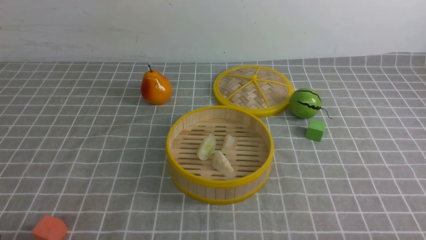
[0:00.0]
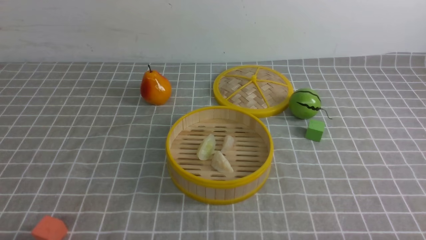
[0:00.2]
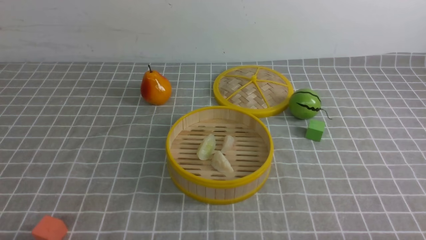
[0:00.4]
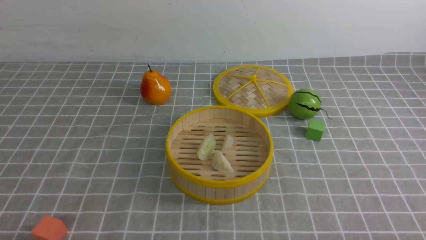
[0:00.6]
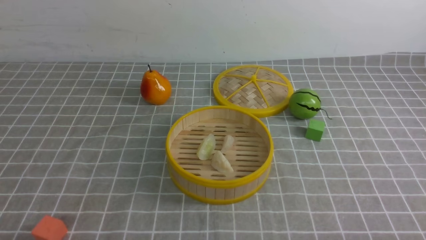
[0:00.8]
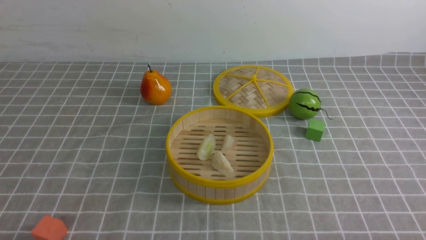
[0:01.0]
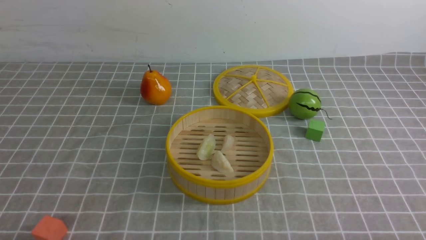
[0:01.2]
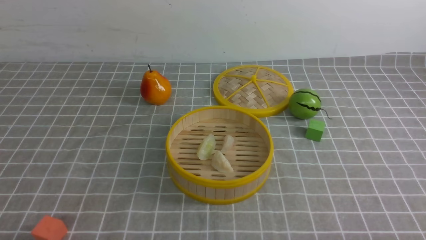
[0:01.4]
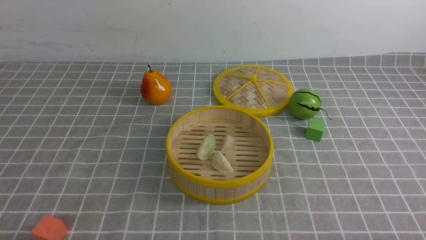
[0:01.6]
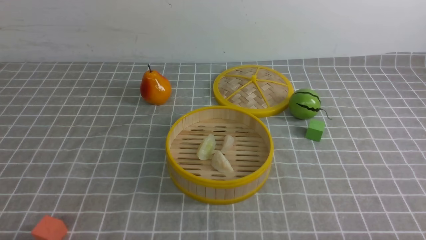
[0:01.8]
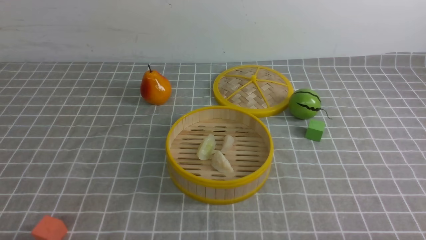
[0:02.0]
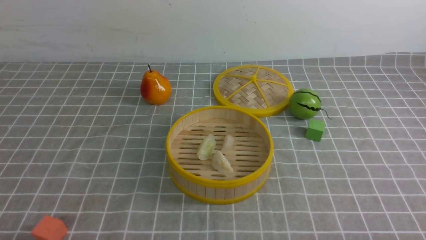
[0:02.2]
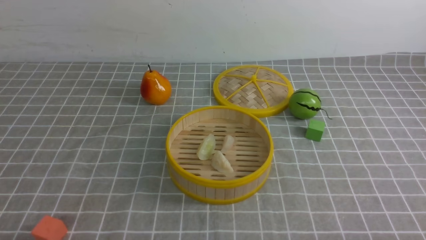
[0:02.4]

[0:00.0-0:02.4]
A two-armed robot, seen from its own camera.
Task of the whole recording: put the dumplings into the steamer on the table with the grey tablecloth.
1.2 to 2.4 s: Both grippers stay put.

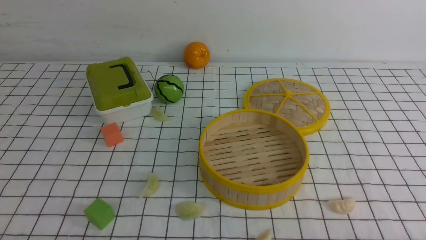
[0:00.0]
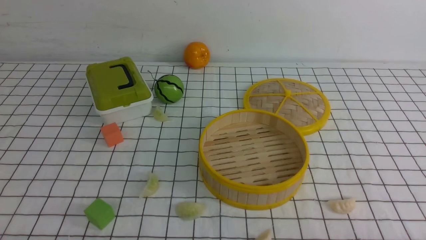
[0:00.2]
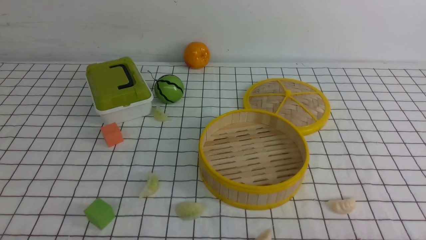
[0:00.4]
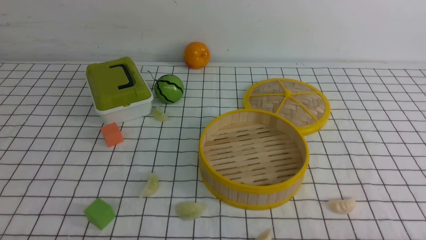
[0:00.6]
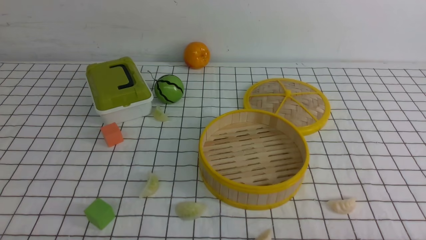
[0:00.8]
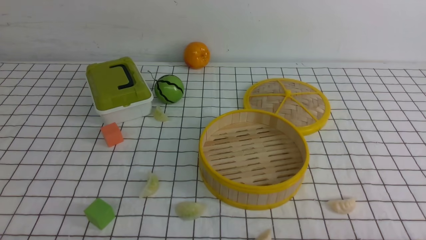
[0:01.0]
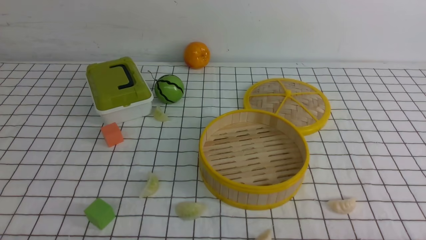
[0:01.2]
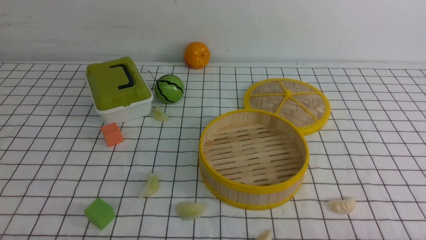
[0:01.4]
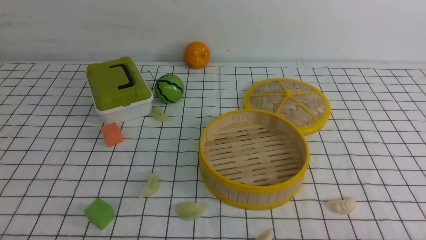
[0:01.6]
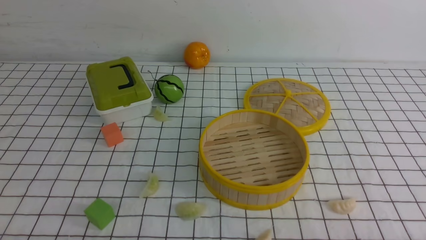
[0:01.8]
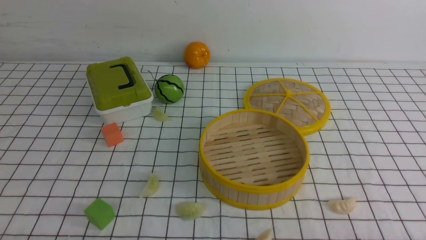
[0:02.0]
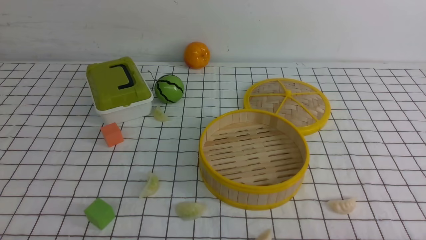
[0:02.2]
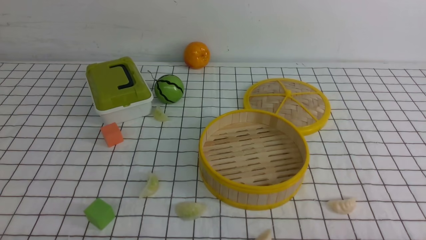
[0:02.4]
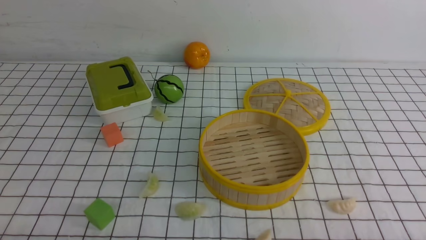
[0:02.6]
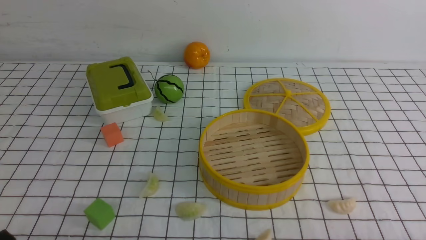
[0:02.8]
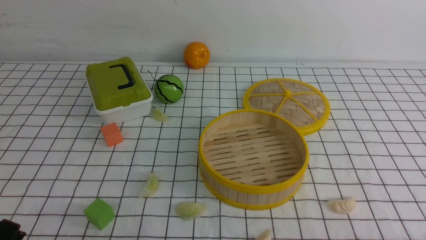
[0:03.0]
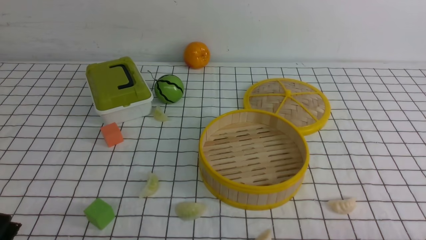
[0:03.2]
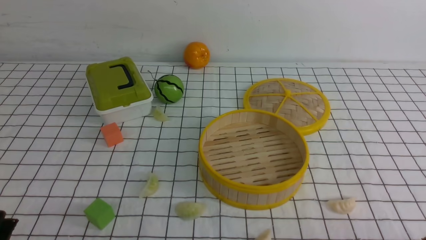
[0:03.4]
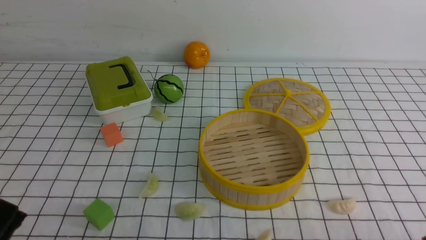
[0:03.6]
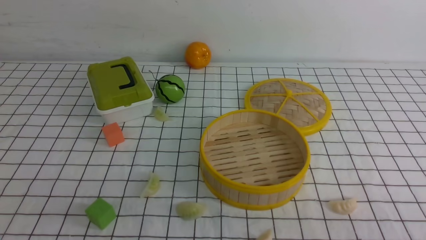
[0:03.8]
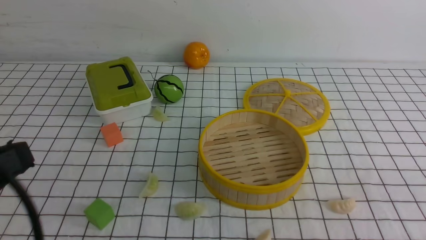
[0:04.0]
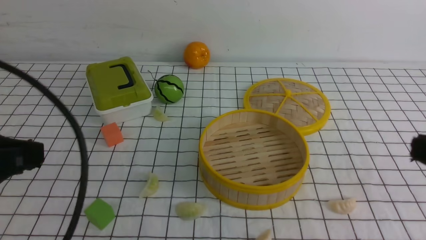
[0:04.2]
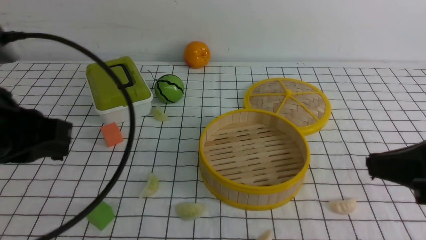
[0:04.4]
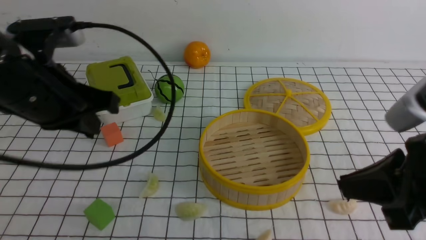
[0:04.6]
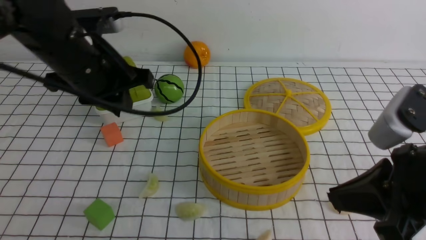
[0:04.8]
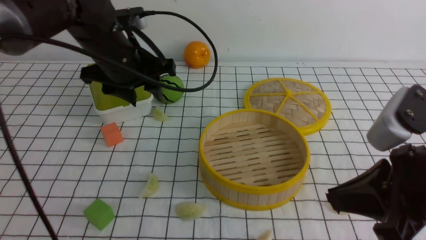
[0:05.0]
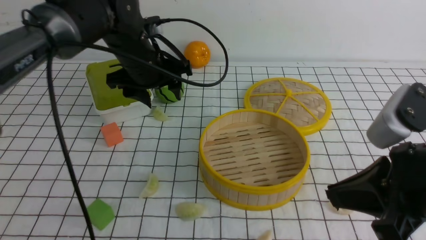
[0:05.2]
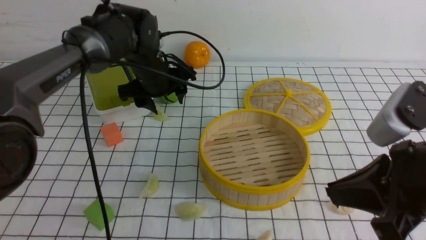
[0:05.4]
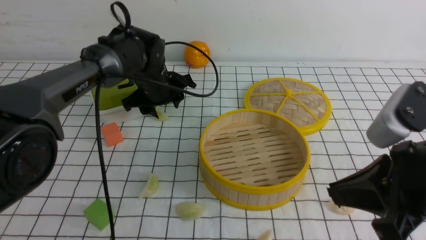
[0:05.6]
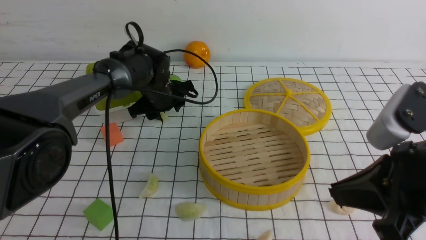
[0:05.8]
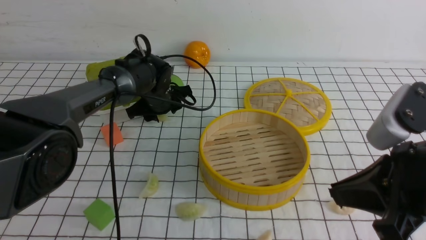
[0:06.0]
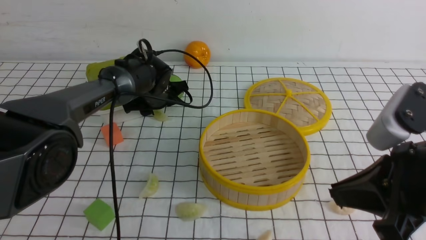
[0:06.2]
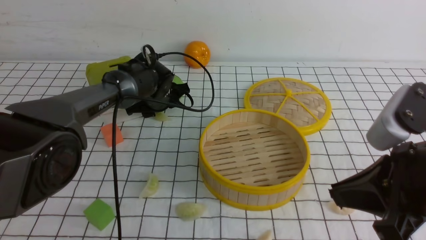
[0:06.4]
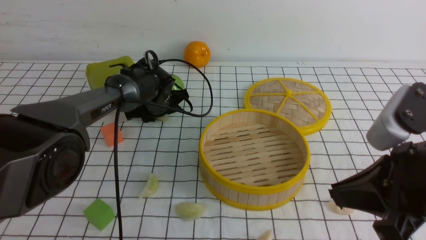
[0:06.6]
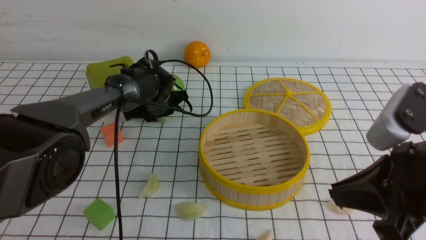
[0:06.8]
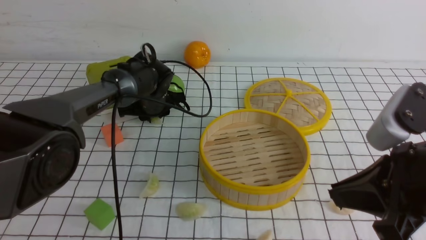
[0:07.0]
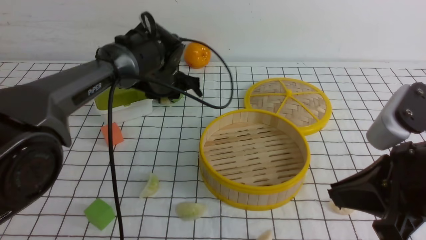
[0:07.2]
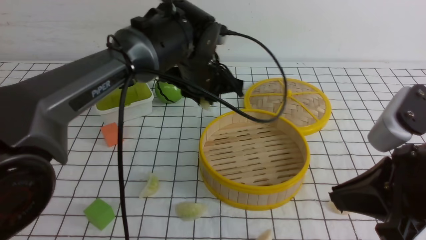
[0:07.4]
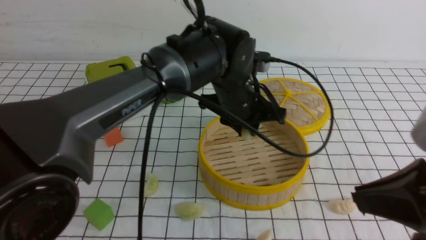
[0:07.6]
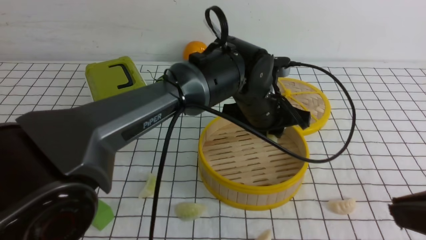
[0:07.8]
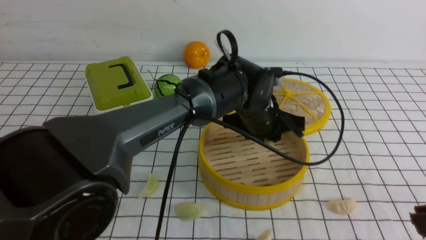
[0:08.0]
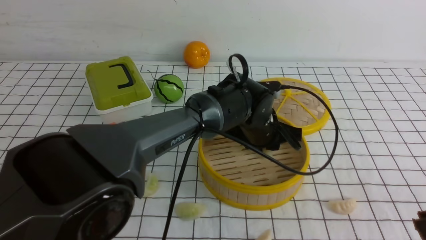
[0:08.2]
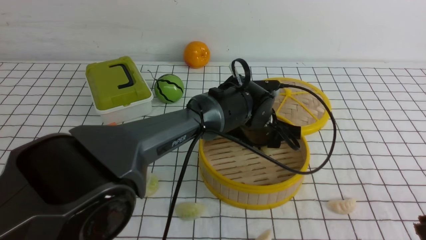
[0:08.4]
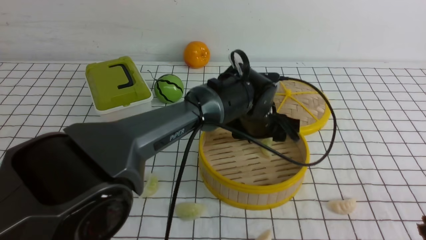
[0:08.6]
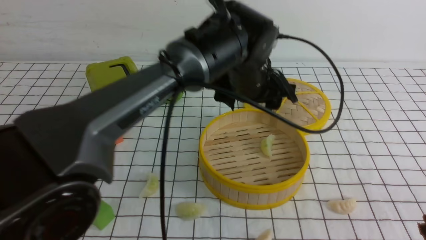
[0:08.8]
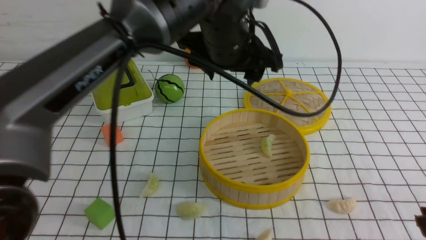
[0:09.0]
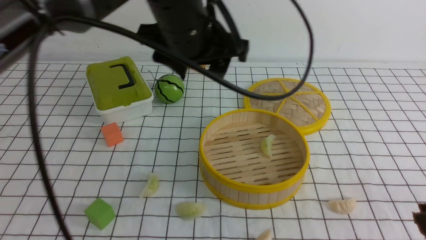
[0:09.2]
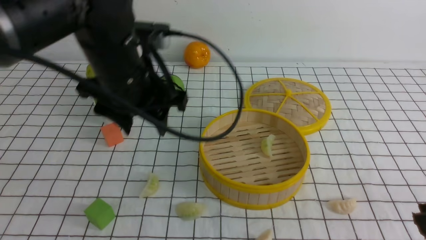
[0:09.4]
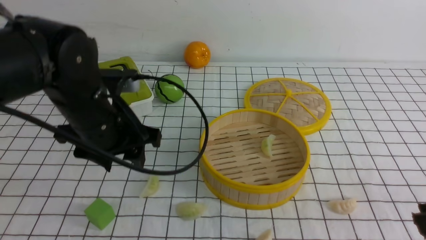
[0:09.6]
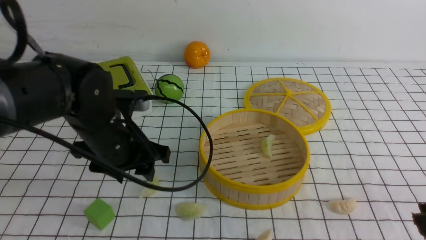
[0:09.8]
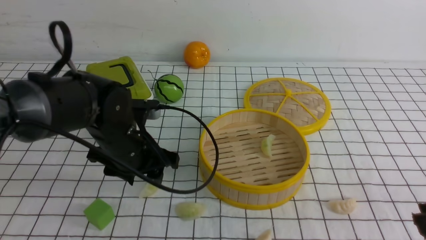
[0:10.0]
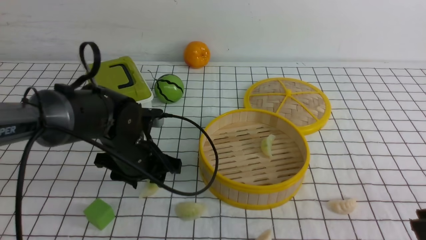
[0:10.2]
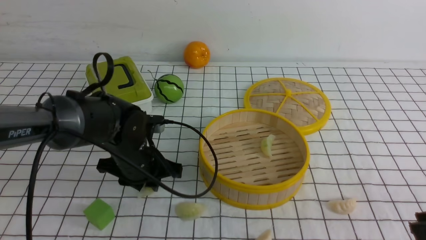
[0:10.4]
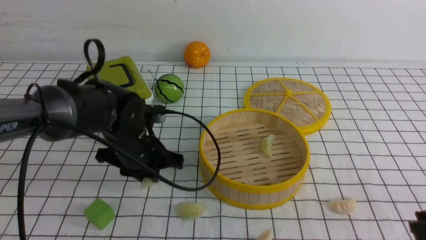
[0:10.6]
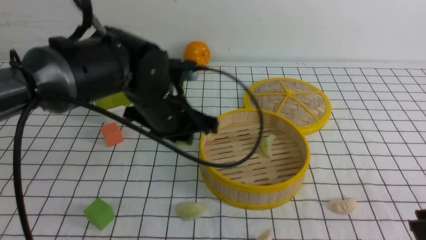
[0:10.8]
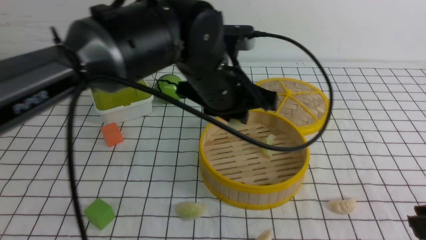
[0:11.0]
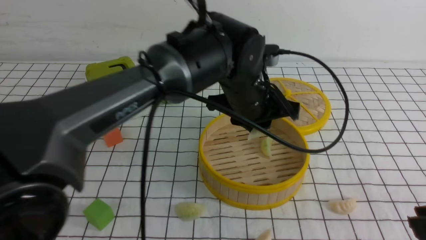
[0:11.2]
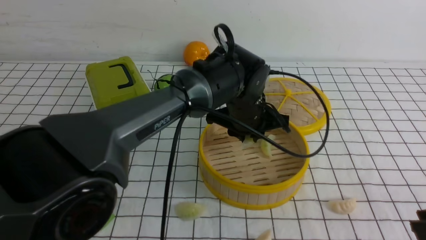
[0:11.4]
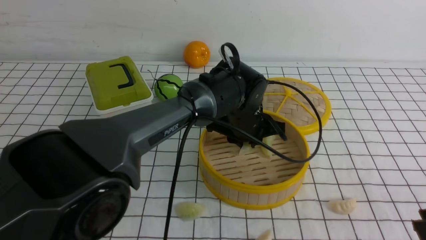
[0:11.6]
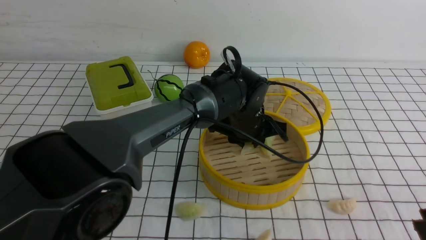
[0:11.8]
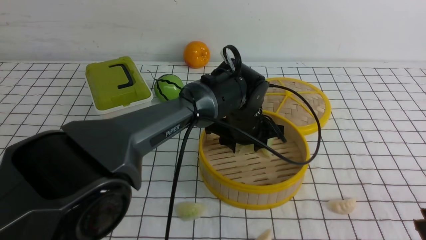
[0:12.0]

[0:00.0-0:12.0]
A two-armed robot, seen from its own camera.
Task of the whole recording: put the dumplings into the steamer on the table with the white tablecloth.
Step, 0.0 to 6.8 s: use the left arm to grab a dumpling.
Step, 7.0 to 8.6 s: use the left arm to put the dumpling into the steamer.
Step, 8.8 to 10.4 s: use the left arm to grab a dumpling.
0.0 to 1.6 s: Both grippers stay about where they are.
3.0 to 4.4 s: Both grippers travel together upward and forward, some 20 cm. The right gripper closes up.
4.4 to 6.0 s: The left gripper moves forward and downward, some 35 cm, and opens.
6.0 to 7.6 s: The left gripper goes roughly 20 cm to the right, backward and upward, and closes up.
7.6 to 9.0 s: The left gripper shifts roughly 10 cm upward, and opens. The right gripper moves approximately 5 cm.
9.0 to 10.4 s: The left gripper shifts about 20 cm downward and to the left, and closes.
10.4 to 12.0 s: The left gripper goes some 15 cm to the right.

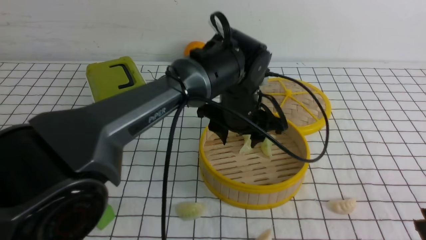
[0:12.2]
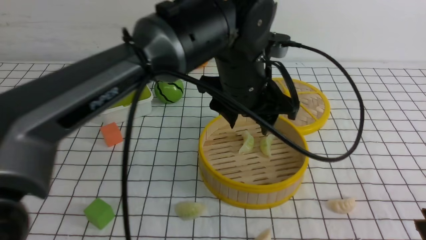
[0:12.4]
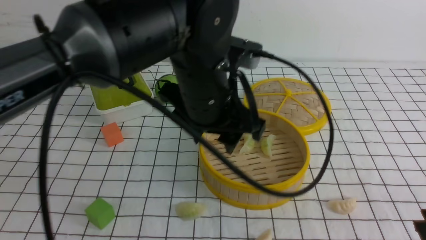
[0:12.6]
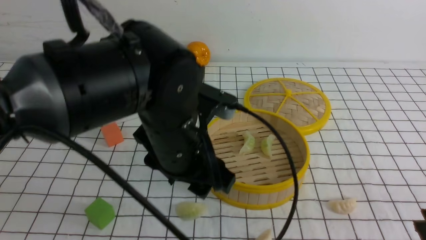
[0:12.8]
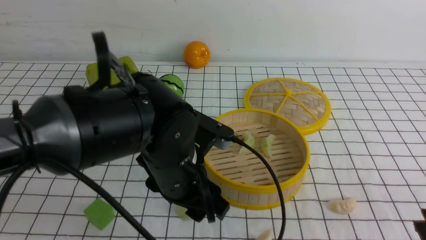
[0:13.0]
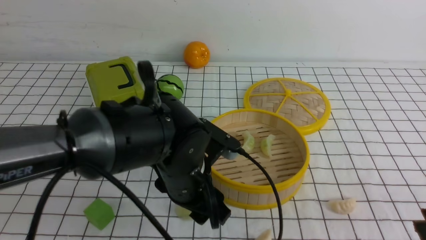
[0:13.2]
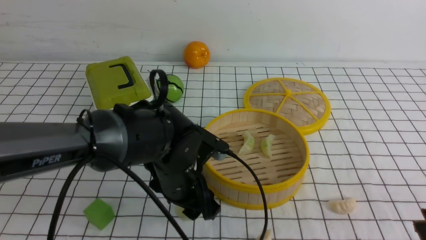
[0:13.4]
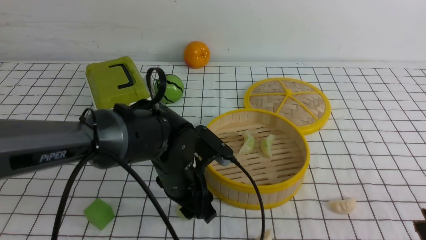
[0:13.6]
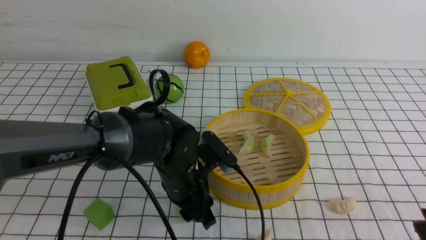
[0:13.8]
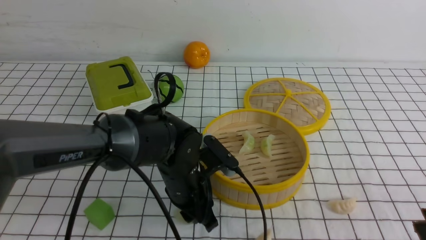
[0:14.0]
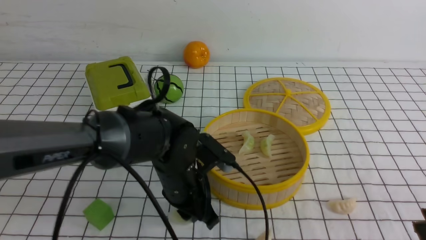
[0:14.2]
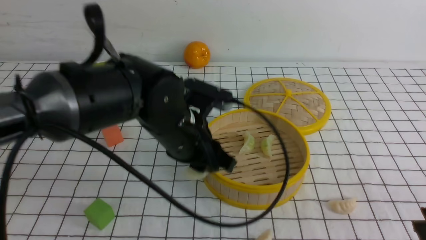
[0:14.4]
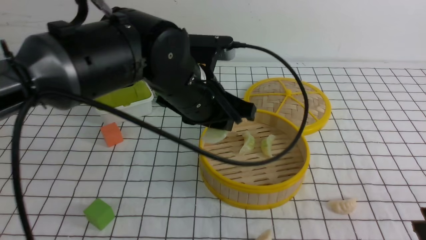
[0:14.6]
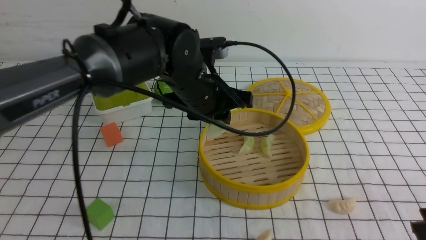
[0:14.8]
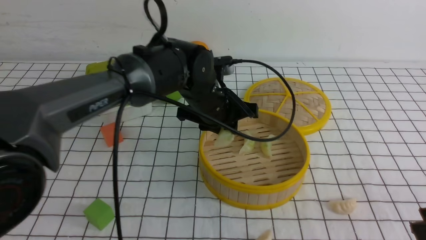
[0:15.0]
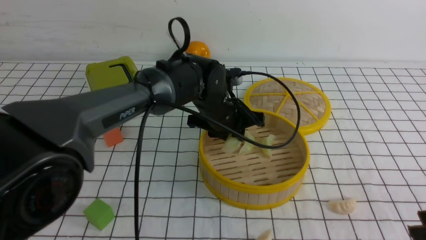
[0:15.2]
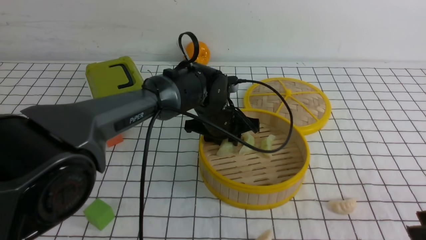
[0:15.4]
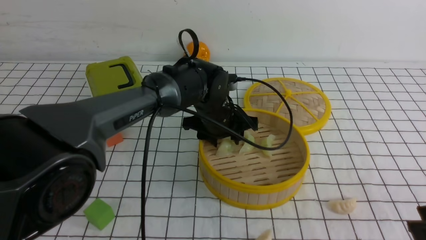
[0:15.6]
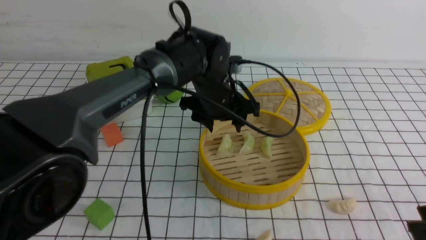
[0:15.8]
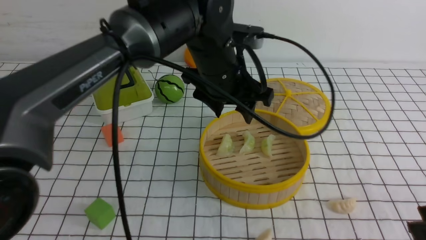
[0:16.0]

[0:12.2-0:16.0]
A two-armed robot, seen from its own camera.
Task of the whole recording: put the dumplings into the steamer on the table with the white tablecloth.
Step, 12.4 to 14.0 s: use the left arm to grab a dumpling.
Step, 14.2 to 15.6 s: use the left arm to put the dumpling into the steamer.
12.2 to 13.4 s: The left gripper heads to the left, backward and downward, covering some 15 cm.
13.4 to 14.8 s: The left gripper shifts some 10 cm upward and forward, and closes.
14.8 to 16.0 s: The left gripper reaches approximately 10 cm downward, then returns, and opens.
